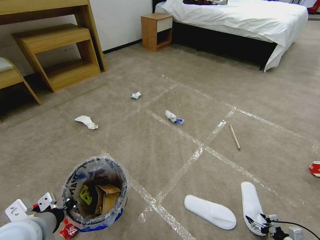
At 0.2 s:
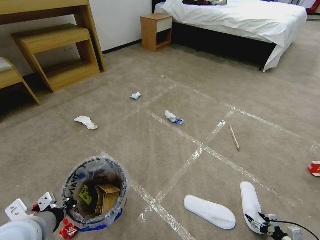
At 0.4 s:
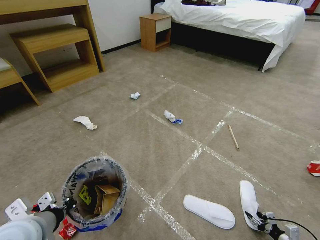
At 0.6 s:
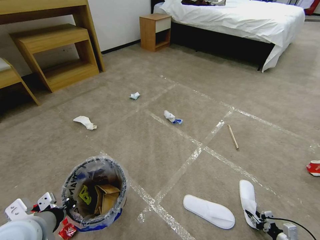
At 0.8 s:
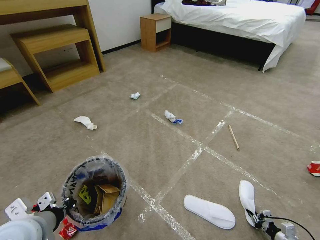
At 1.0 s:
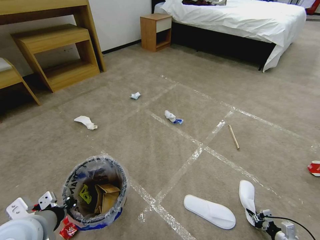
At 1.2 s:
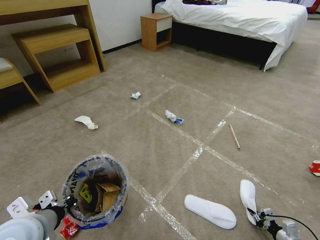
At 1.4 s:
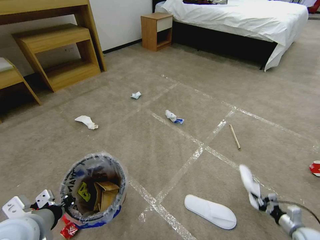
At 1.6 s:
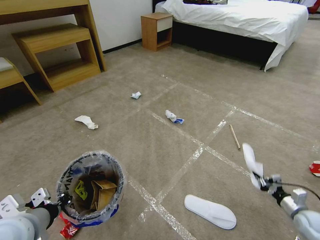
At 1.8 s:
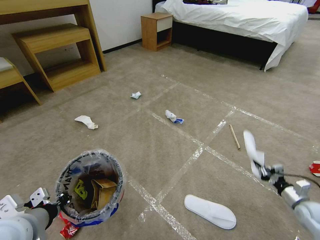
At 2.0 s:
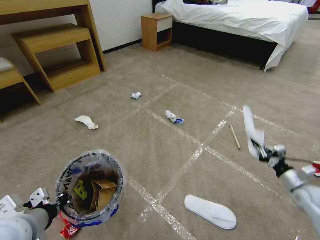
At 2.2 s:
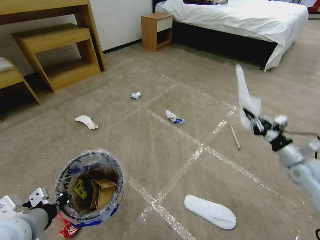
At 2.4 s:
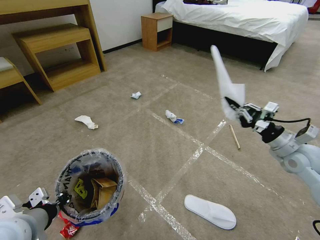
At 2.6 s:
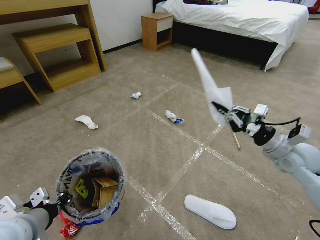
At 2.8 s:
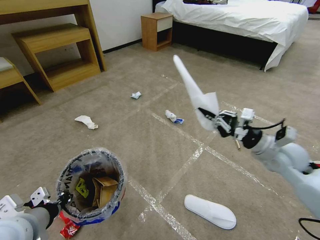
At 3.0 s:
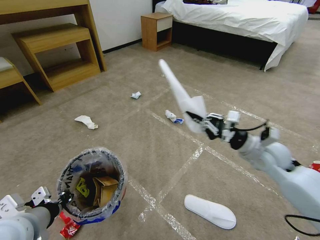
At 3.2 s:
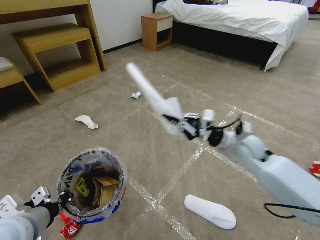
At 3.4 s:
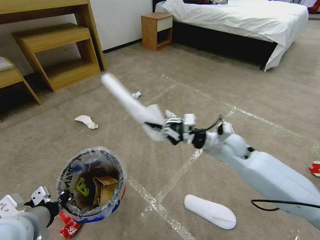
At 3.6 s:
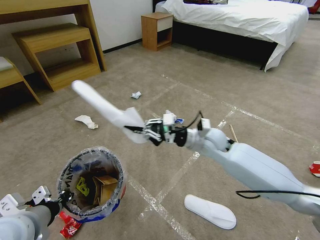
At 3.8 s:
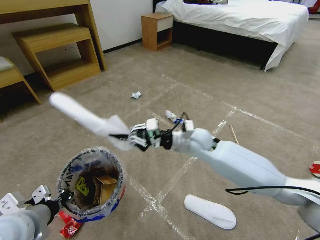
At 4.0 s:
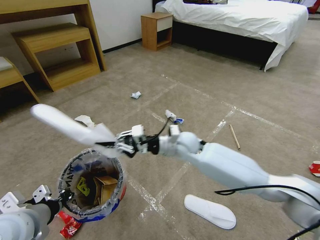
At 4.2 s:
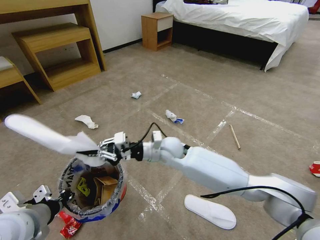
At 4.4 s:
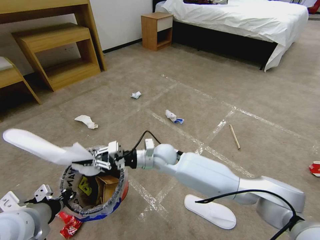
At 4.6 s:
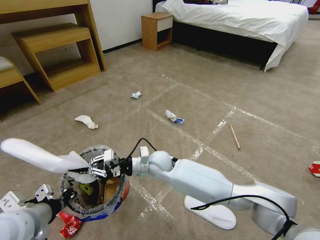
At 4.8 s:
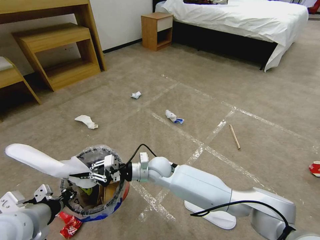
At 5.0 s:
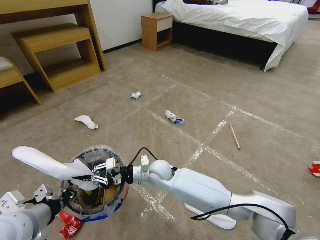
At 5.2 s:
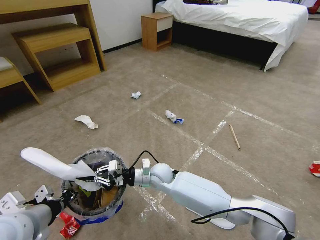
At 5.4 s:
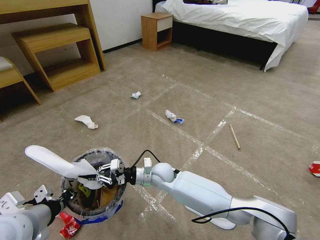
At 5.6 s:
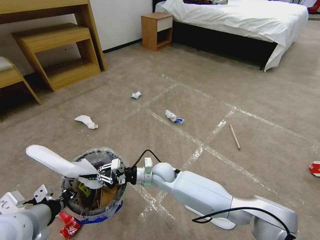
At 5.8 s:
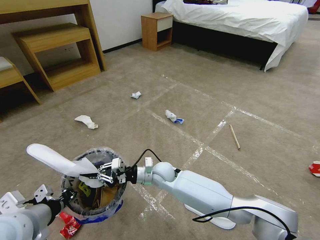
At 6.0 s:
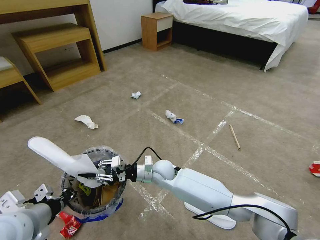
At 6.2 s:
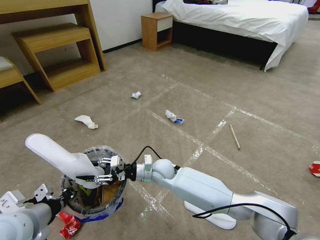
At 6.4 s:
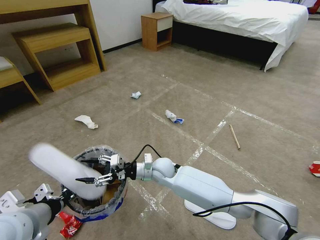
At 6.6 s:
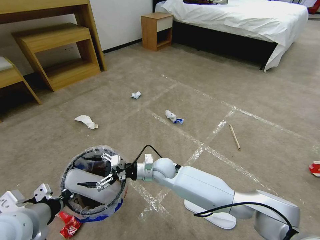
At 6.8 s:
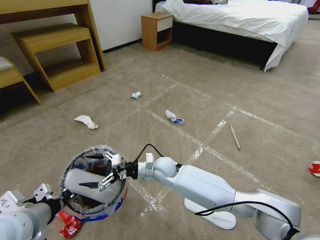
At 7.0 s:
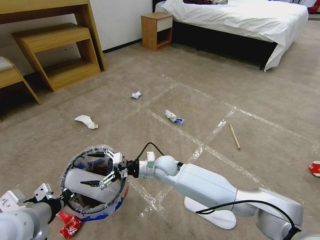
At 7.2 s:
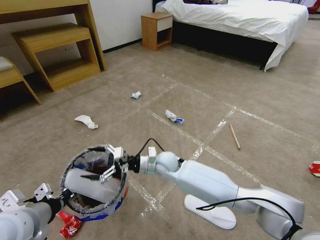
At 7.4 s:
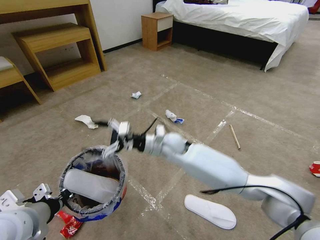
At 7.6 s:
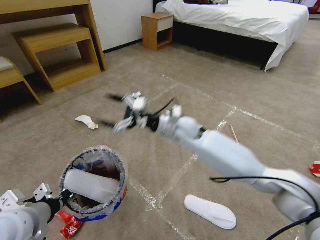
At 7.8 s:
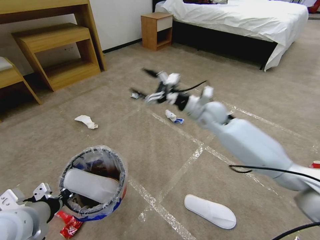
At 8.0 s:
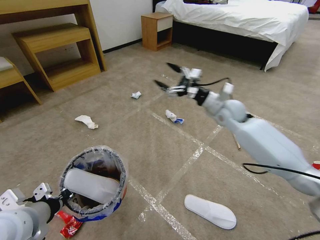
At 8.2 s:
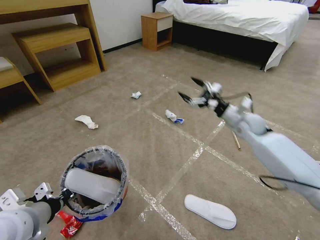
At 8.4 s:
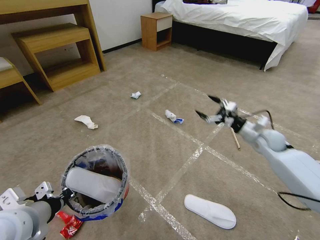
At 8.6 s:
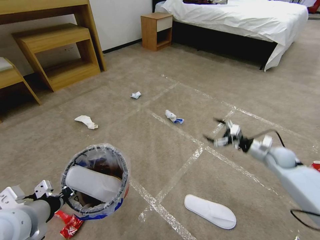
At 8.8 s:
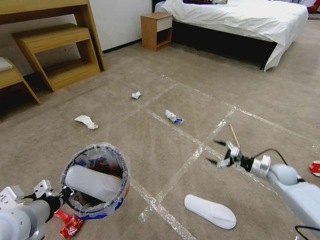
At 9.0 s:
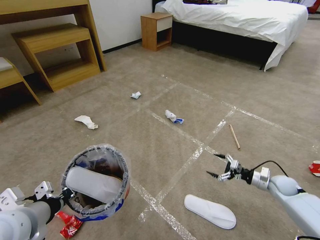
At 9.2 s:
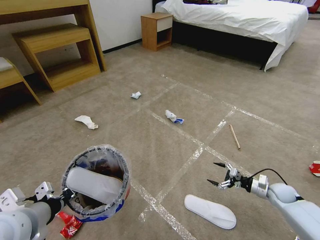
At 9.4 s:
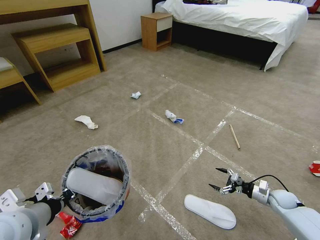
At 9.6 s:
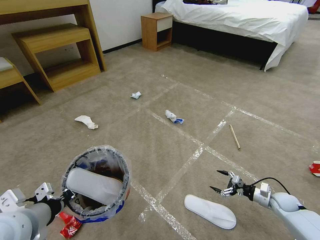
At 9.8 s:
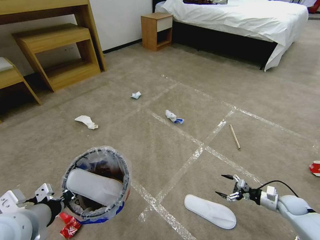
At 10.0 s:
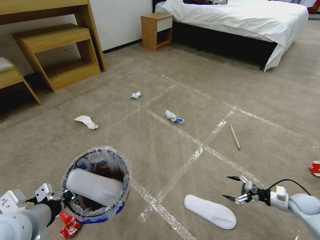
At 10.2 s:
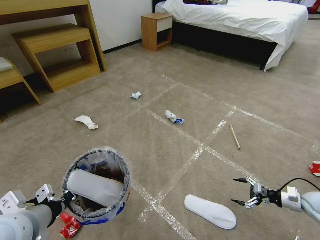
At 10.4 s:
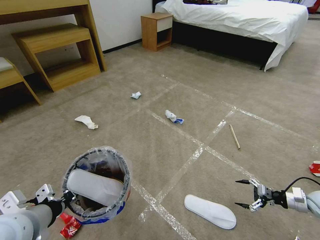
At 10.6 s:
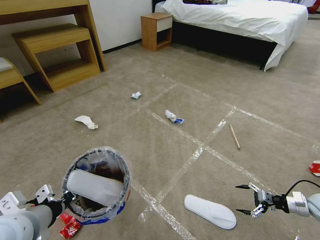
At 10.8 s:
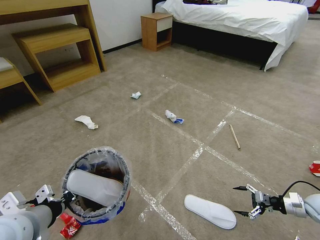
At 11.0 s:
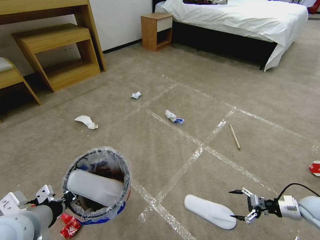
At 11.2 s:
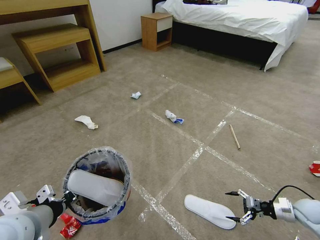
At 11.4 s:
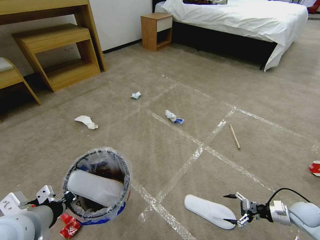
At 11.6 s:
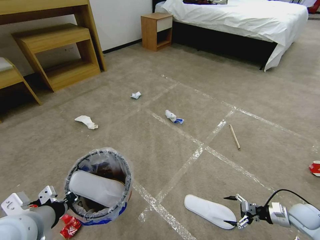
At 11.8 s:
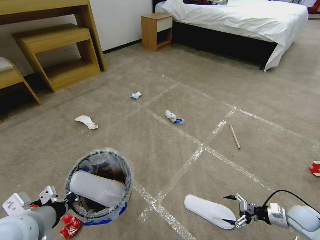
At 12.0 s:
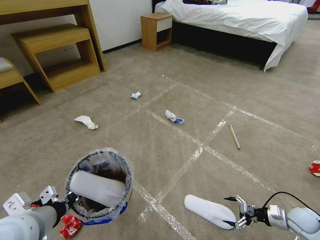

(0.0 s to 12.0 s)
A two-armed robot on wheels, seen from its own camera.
Task of the whole recording: Pick up the trash bin and place the garbage on the floor into it.
0.0 s - 1.6 s: The right gripper shifts roughly 15 cm forward and upward, and closes up.
1.6 s - 3.0 s: The right gripper travels upward, to the left and forward by roughly 35 cm.
3.0 s - 4.4 s: The right gripper shifts some 30 cm to the left.
4.4 s - 6.0 s: The right gripper goes approximately 10 cm downward.
6.0 s - 7.6 s: The right gripper goes about 15 cm upward and forward, and opens.
7.6 s - 9.0 s: The right gripper travels to the right and downward by some 50 cm.
9.0 s - 10.4 s: The right gripper shifts about 10 cm to the right and backward.
10.4 s - 12.0 s: The right gripper travels to the left and downward by approximately 10 cm.

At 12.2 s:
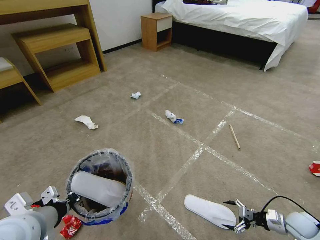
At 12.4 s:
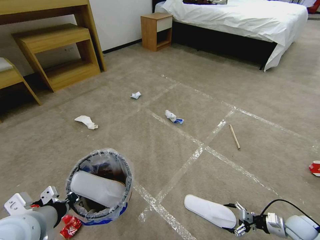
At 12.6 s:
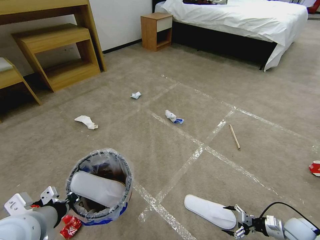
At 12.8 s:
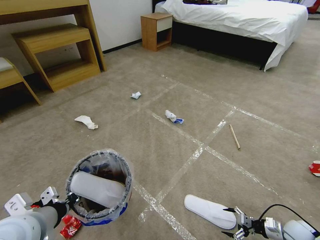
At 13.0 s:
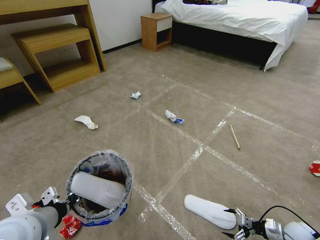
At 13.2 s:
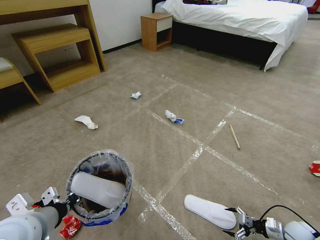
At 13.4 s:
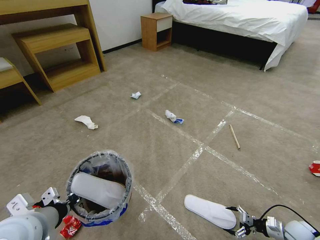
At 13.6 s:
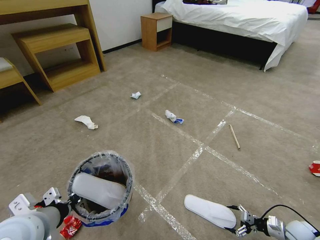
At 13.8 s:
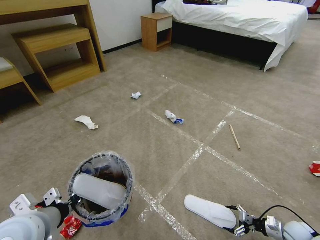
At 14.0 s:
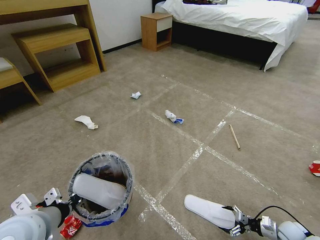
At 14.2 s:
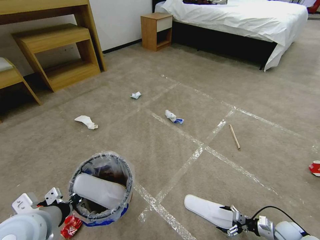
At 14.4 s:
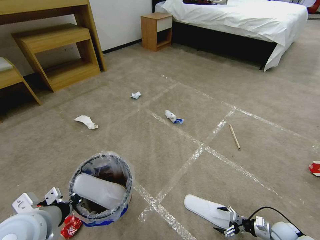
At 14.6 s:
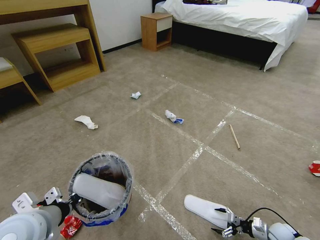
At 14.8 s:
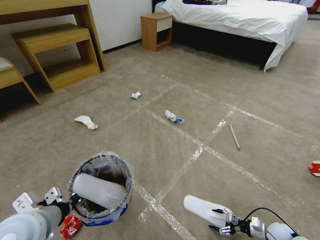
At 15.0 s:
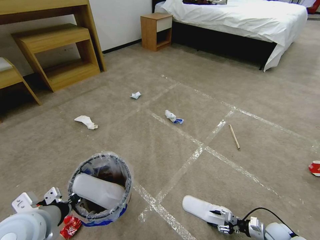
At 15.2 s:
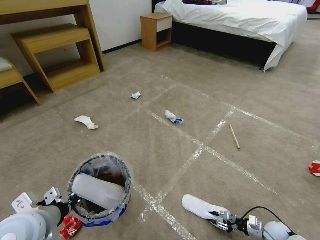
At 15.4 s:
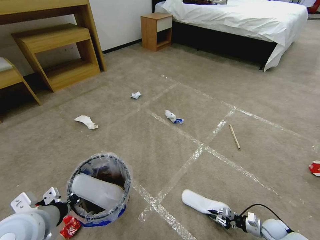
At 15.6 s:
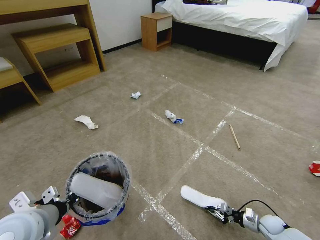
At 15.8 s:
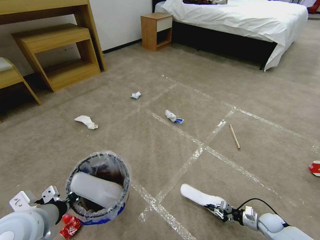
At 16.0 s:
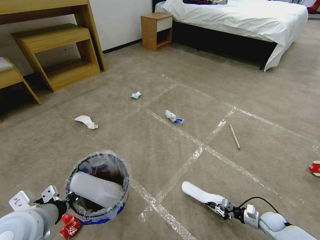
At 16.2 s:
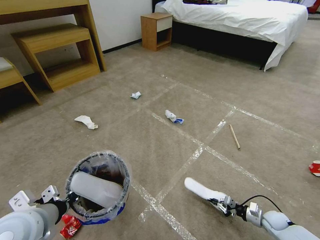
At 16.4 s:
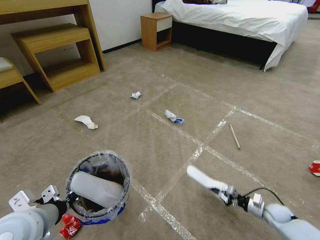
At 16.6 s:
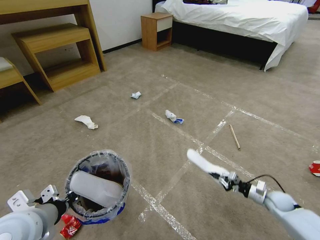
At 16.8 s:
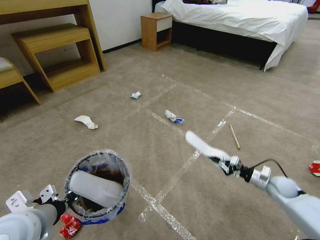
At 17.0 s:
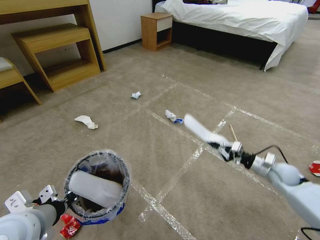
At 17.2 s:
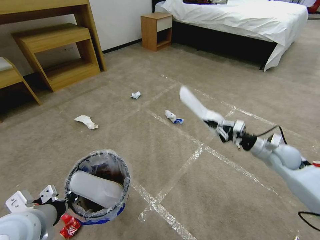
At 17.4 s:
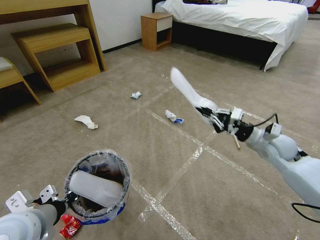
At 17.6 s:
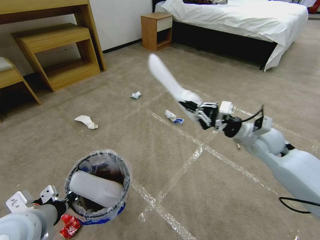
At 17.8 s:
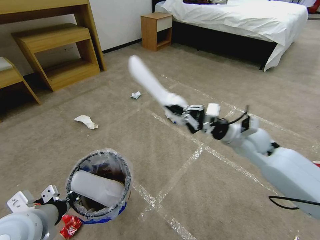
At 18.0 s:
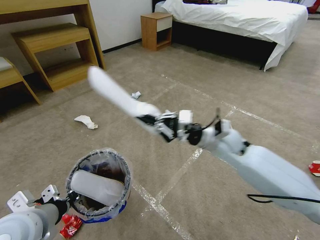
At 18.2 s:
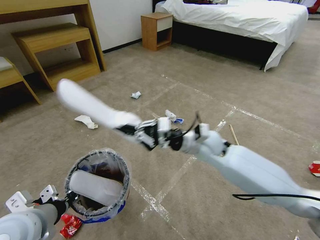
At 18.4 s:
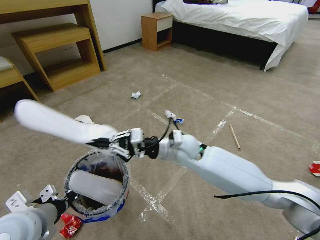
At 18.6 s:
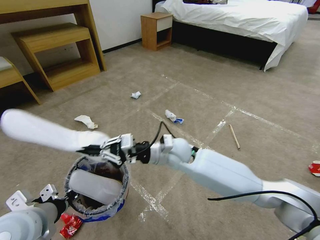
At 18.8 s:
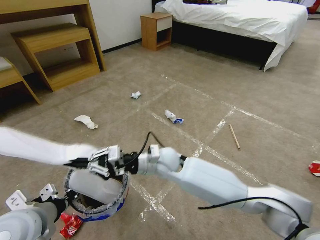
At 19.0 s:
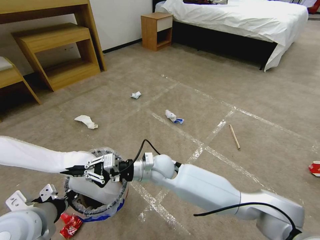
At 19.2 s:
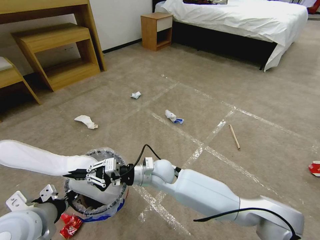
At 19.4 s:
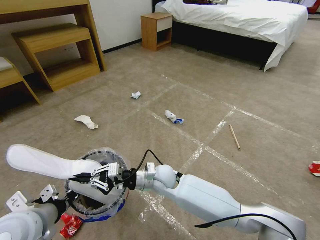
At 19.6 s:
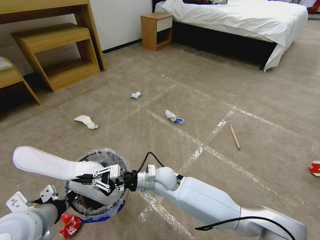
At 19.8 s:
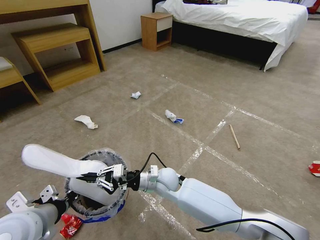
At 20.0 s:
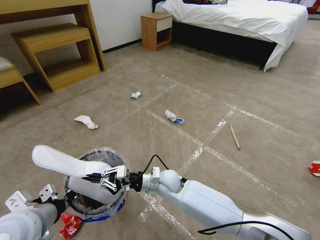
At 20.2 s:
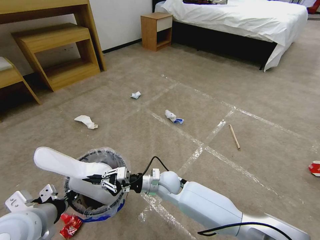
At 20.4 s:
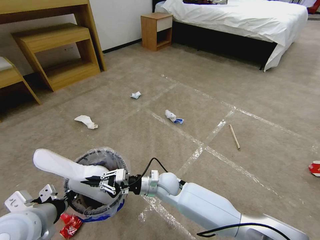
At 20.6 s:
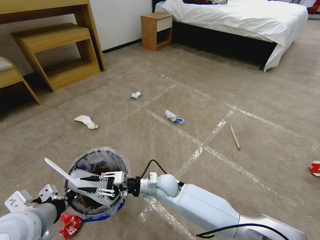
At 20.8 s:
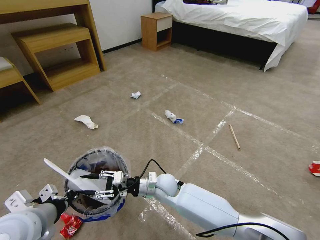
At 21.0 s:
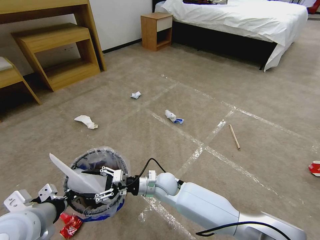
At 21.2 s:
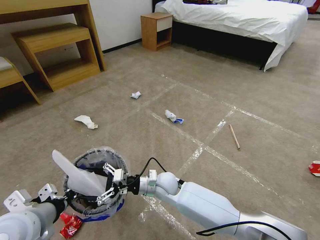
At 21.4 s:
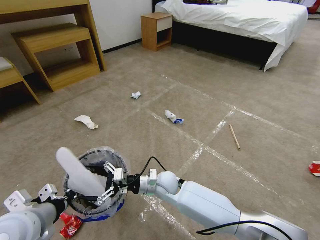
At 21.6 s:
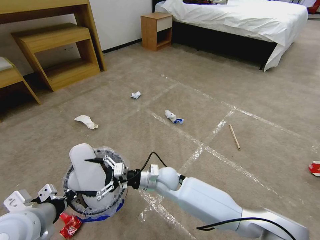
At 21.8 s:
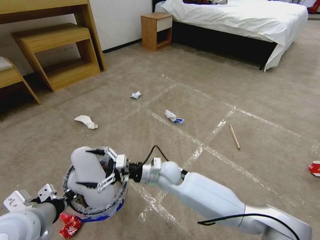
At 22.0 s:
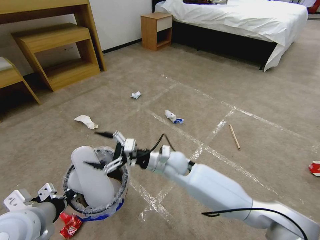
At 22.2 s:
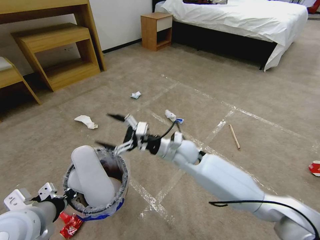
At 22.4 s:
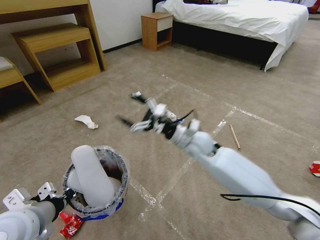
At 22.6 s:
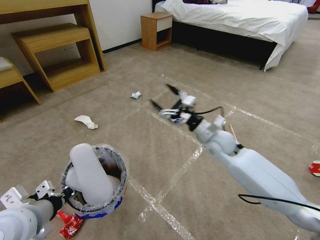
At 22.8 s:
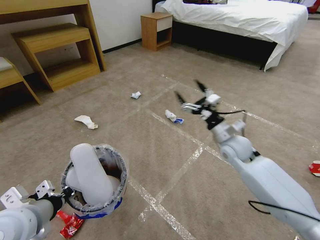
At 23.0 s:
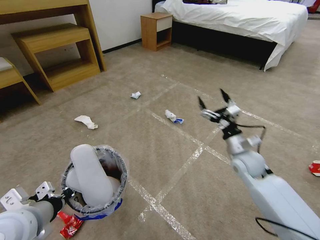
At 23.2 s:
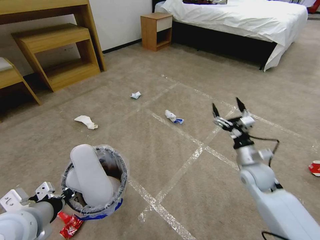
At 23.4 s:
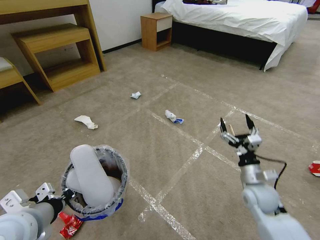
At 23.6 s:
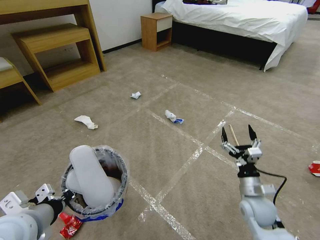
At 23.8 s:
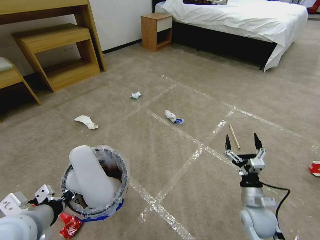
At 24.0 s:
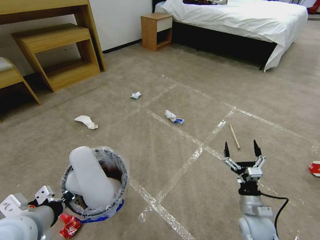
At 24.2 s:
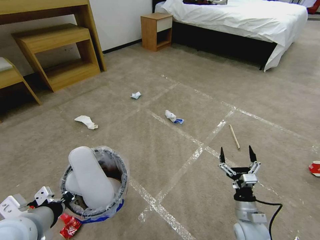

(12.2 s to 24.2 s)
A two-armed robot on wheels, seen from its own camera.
Task of the whole recording: Pick up the trash bin and place the garbage on the floor into it.
12.2 s - 13.8 s: The right gripper is displaced downward by roughly 5 cm.
13.8 s - 15.2 s: The right gripper shifts approximately 5 cm to the left, and closes.
15.2 s - 16.6 s: The right gripper is displaced upward and forward by about 15 cm.
16.6 s - 18.2 s: The right gripper moves to the left and upward, some 40 cm.
18.2 s - 19.8 s: The right gripper is displaced downward and to the left by some 20 cm.
19.8 s - 21.2 s: The right gripper opens up.
21.2 s - 22.6 s: The right gripper moves to the right, upward and forward, approximately 25 cm.
22.6 s - 24.2 s: The right gripper shifts some 30 cm backward, downward and to the right.
